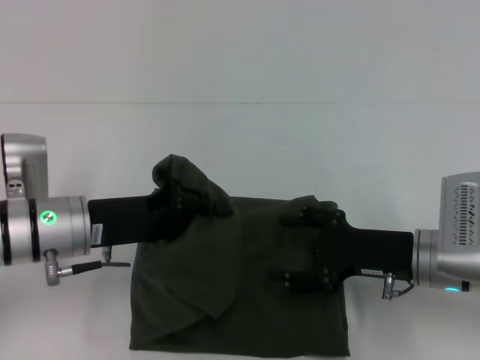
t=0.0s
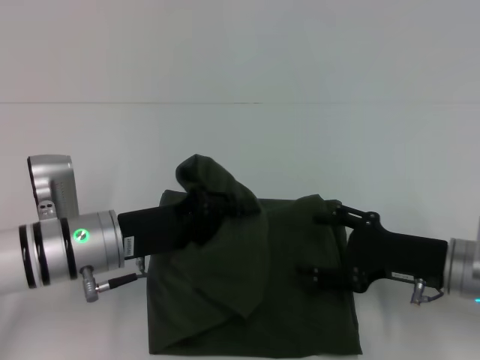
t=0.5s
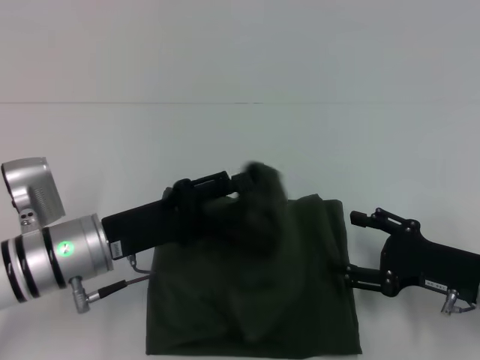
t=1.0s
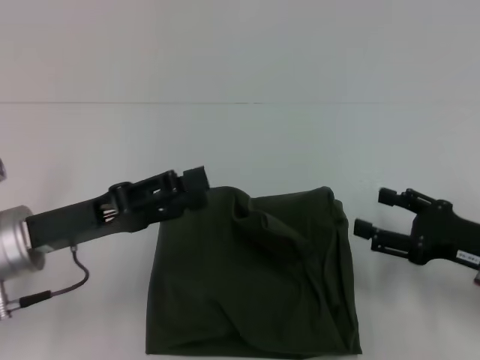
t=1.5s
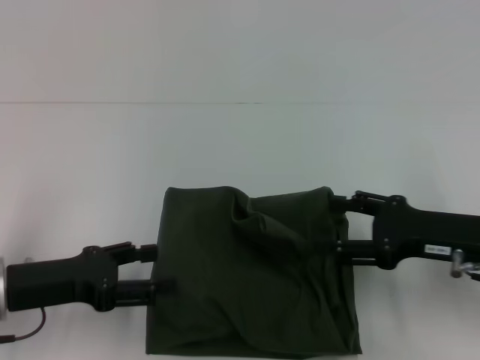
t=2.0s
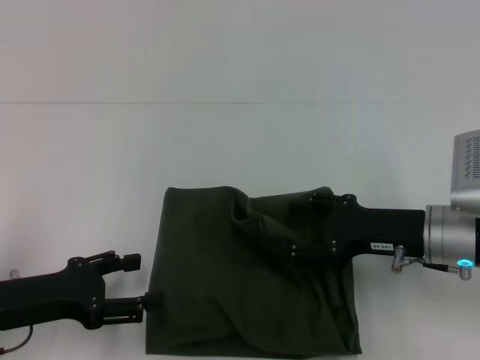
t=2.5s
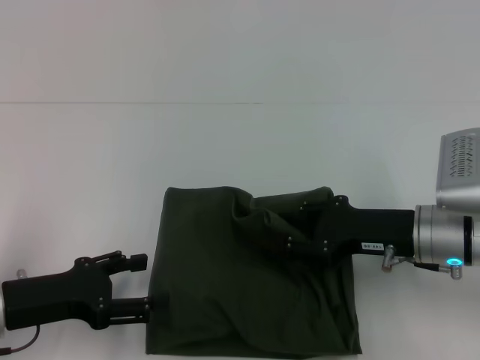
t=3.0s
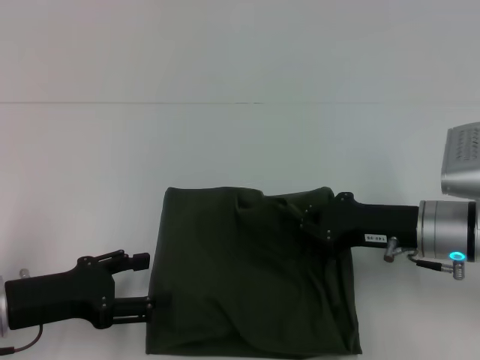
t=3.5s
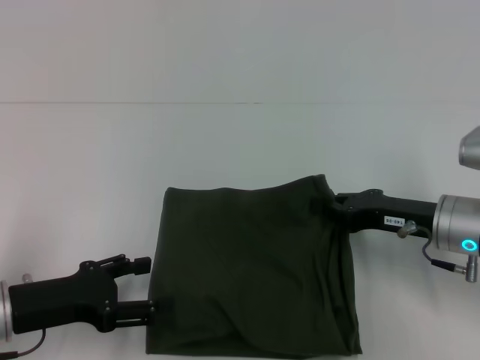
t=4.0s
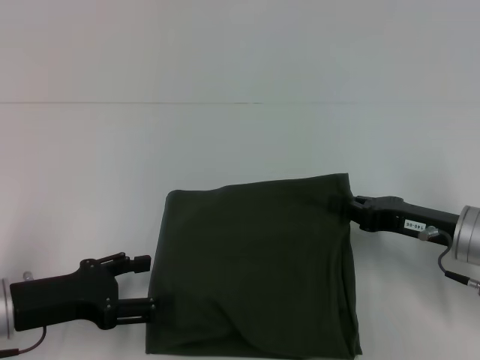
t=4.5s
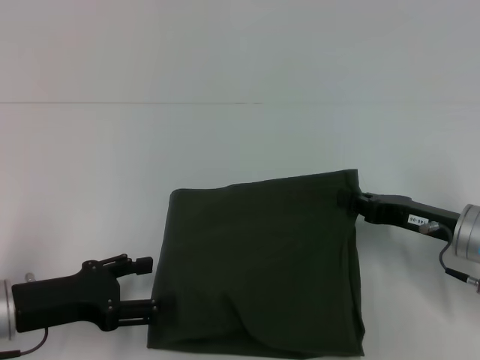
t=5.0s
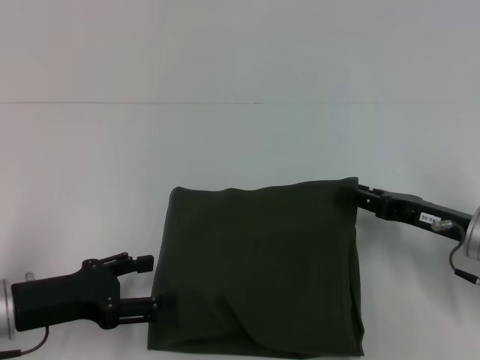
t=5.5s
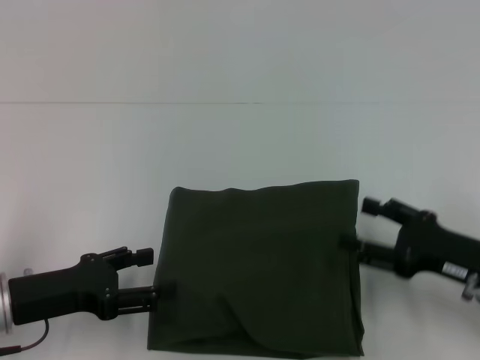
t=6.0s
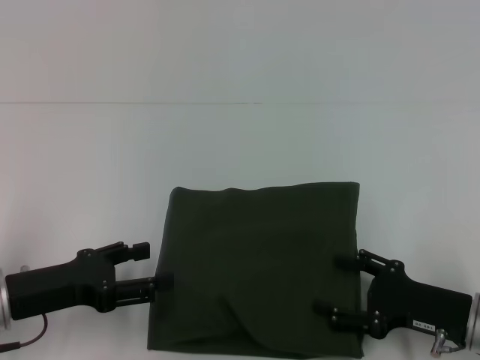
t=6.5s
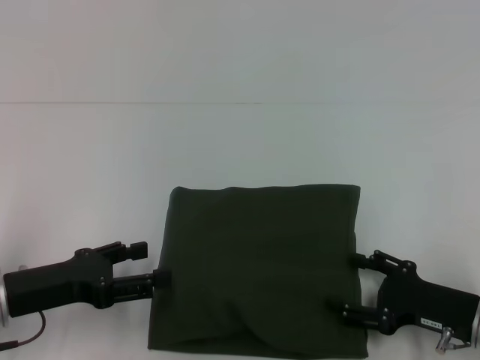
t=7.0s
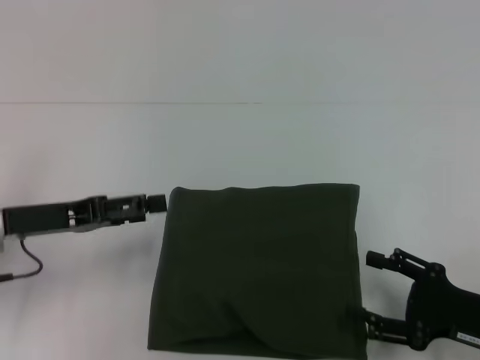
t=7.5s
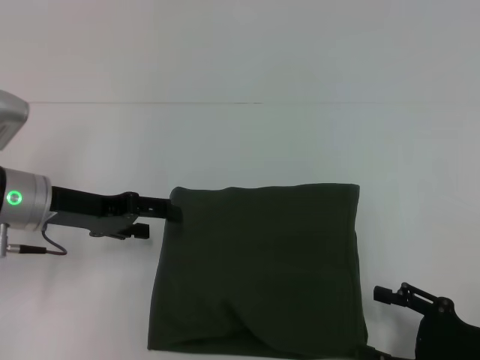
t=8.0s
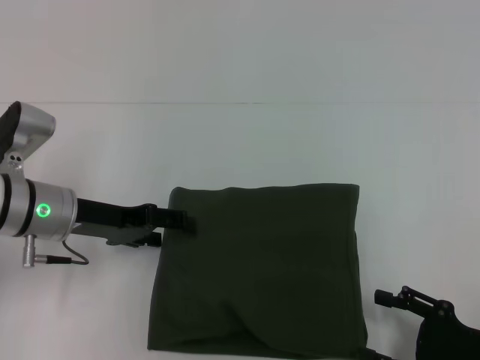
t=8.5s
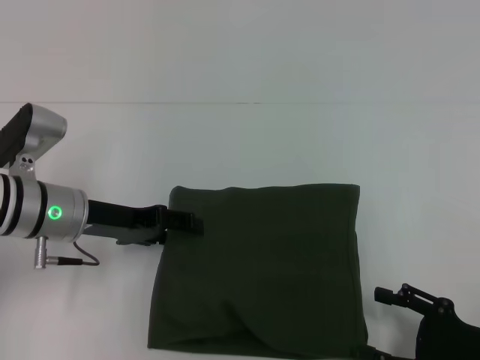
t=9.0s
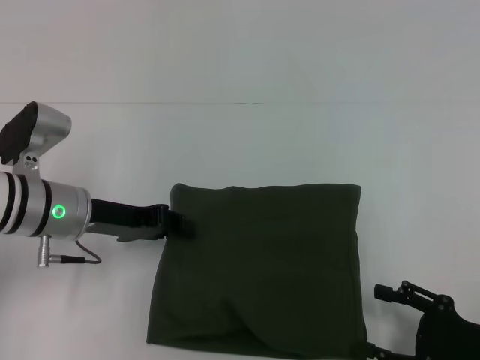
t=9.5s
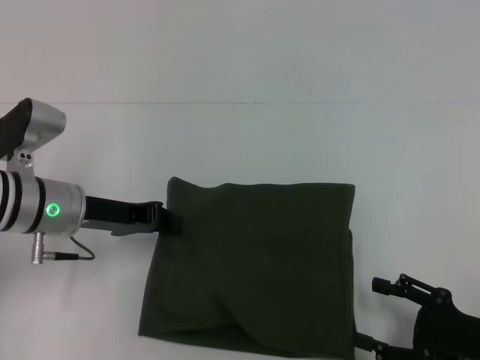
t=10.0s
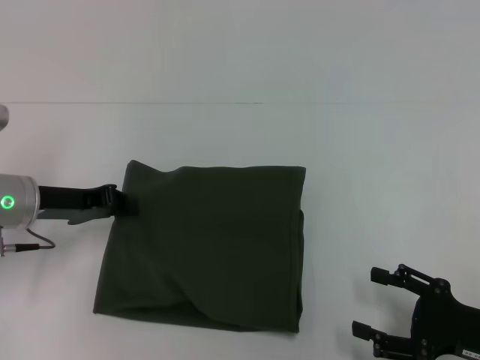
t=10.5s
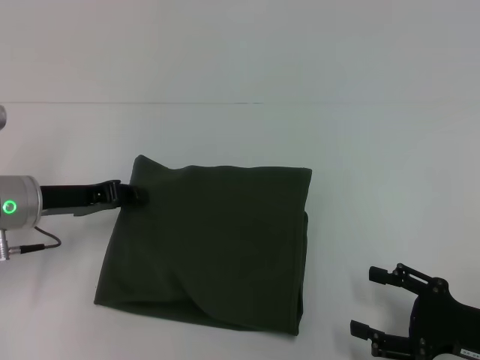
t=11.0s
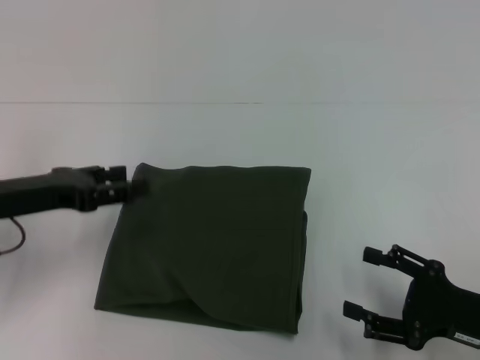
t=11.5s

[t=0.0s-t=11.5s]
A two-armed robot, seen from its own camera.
t=0.0s to t=2.0s: The right gripper moves roughly 5 cm, while the left gripper moves to the left and backward, about 10 cm, and opens up.
t=2.0s to t=4.0s: The right gripper closes.
t=4.0s to t=6.0s: The right gripper travels backward by approximately 5 cm, and opens up.
t=6.0s to t=7.5s: The left gripper travels forward by about 5 cm; the right gripper ends up approximately 5 cm from where it was.
t=7.5s to t=9.5s: The left gripper heads to the right and forward, covering about 10 cm, and closes up.
t=9.5s to t=11.5s: The left gripper travels to the left by some 5 cm, and closes, then opens again.

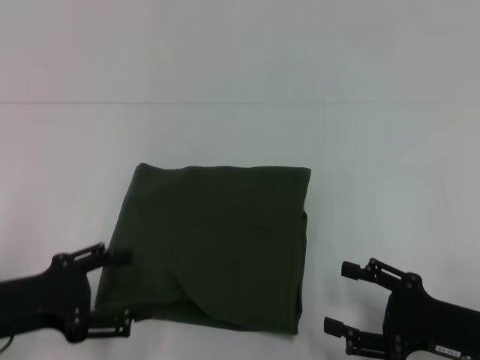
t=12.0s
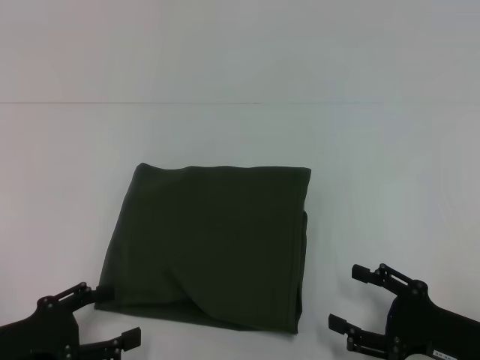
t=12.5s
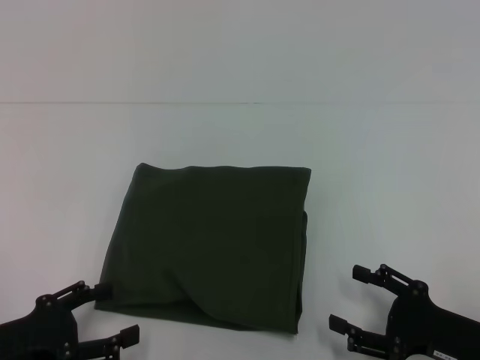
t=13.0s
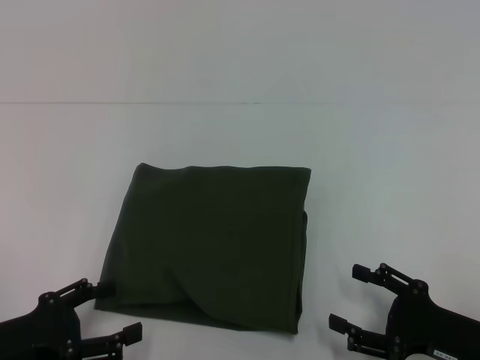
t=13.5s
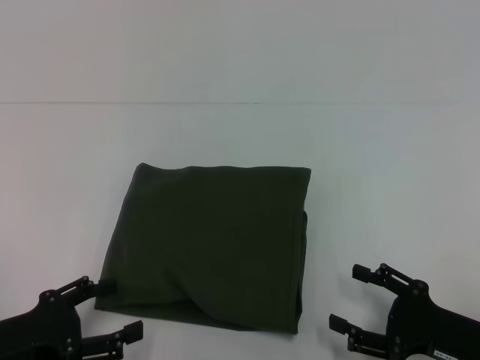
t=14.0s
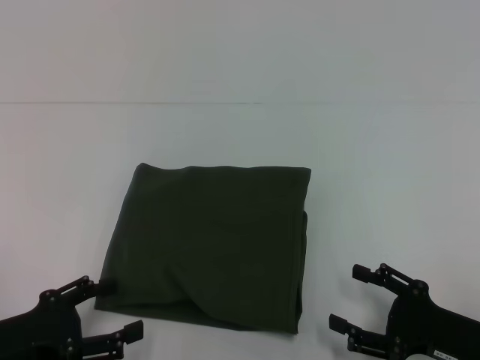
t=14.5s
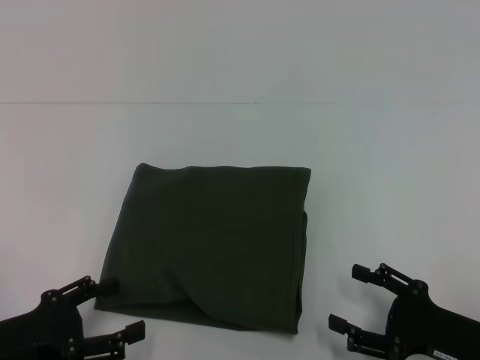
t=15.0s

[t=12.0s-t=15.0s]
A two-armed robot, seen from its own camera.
t=12.0s to t=13.5s: The left gripper ends up some 5 cm from where it was.
t=13.5s to t=15.0s: Both grippers stay about where they are.
